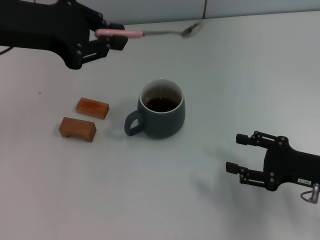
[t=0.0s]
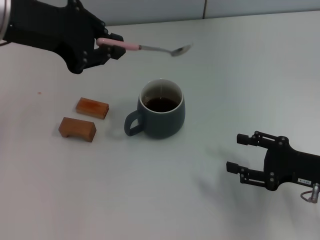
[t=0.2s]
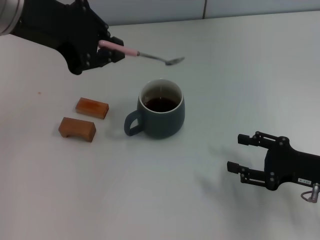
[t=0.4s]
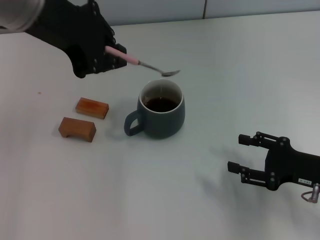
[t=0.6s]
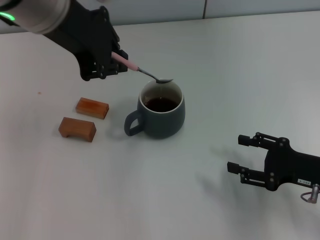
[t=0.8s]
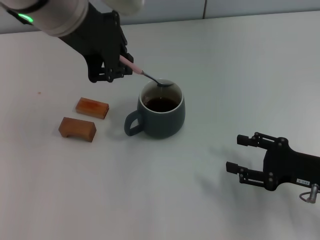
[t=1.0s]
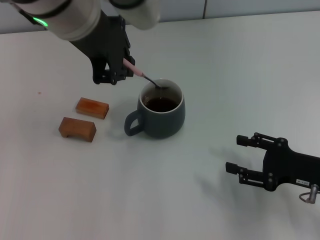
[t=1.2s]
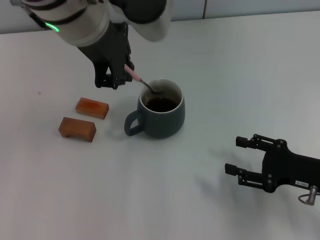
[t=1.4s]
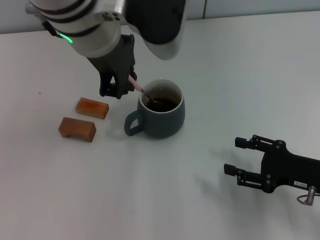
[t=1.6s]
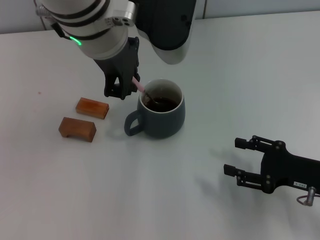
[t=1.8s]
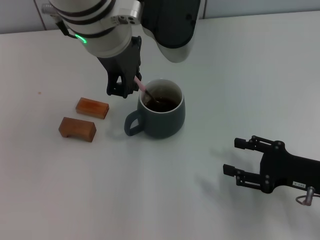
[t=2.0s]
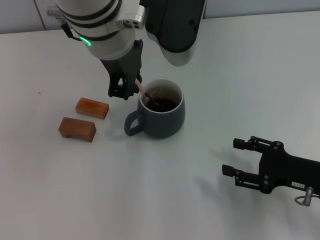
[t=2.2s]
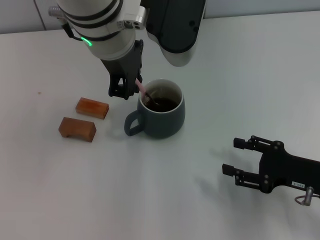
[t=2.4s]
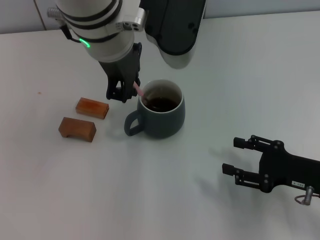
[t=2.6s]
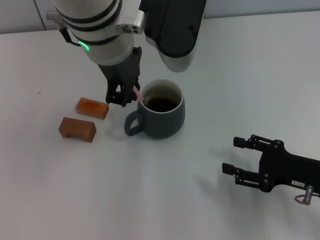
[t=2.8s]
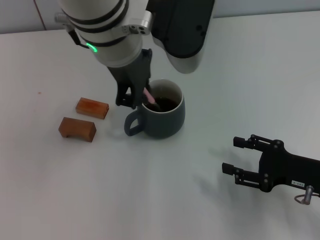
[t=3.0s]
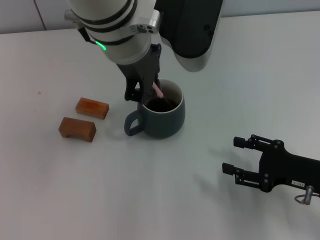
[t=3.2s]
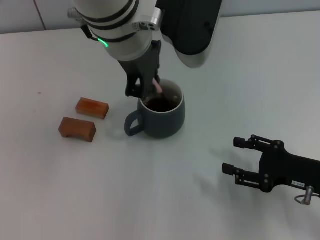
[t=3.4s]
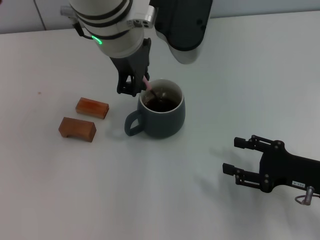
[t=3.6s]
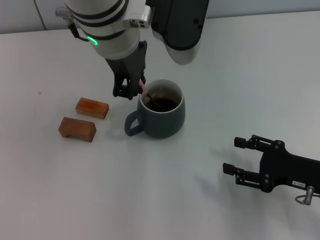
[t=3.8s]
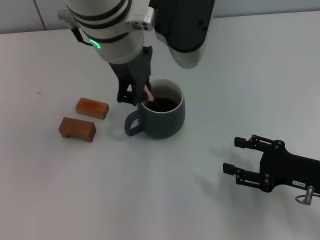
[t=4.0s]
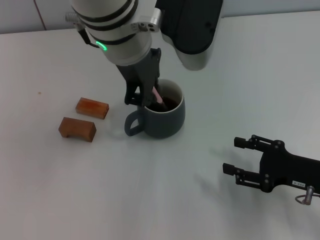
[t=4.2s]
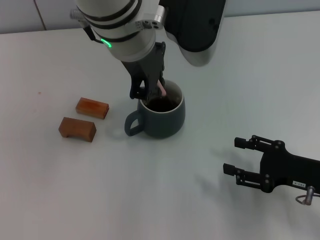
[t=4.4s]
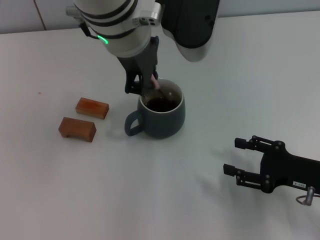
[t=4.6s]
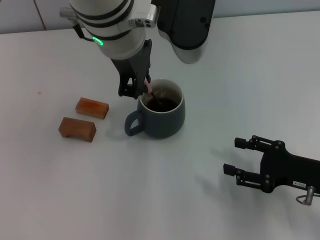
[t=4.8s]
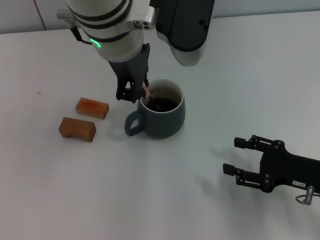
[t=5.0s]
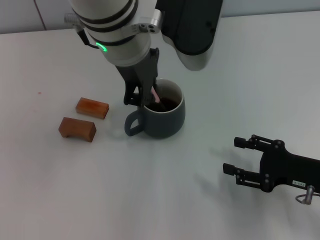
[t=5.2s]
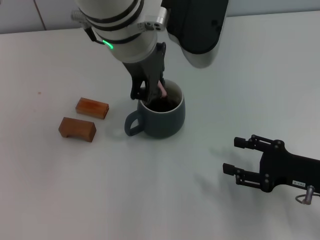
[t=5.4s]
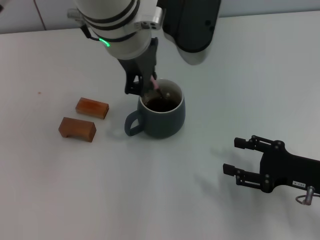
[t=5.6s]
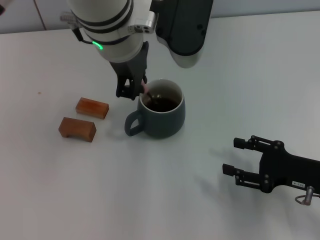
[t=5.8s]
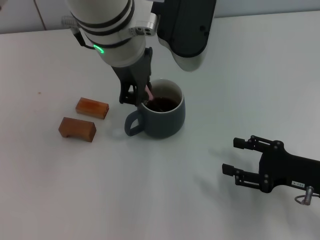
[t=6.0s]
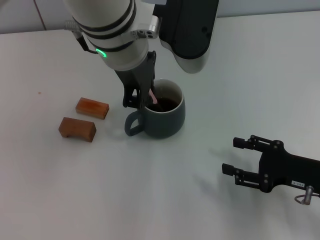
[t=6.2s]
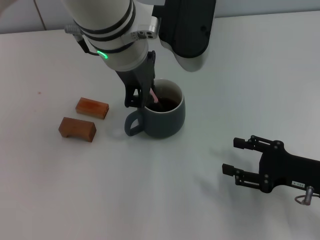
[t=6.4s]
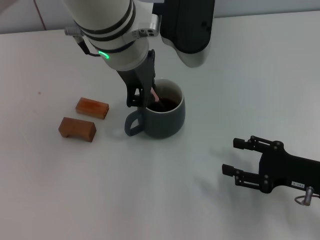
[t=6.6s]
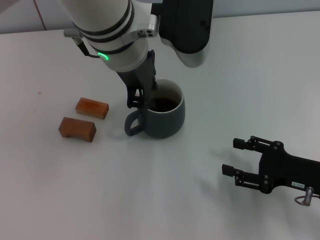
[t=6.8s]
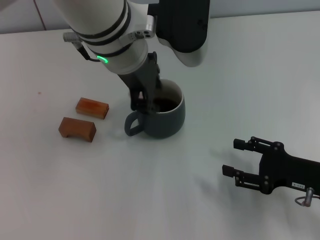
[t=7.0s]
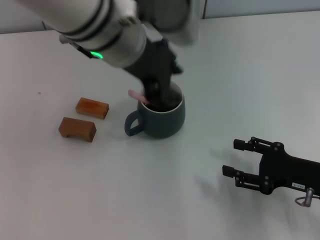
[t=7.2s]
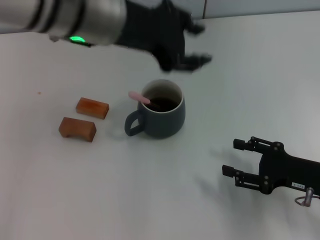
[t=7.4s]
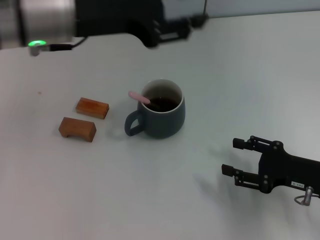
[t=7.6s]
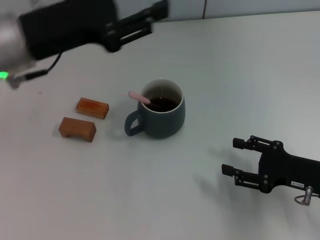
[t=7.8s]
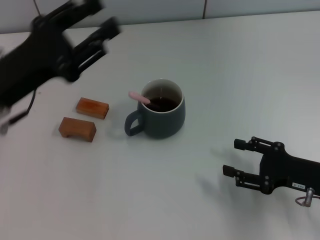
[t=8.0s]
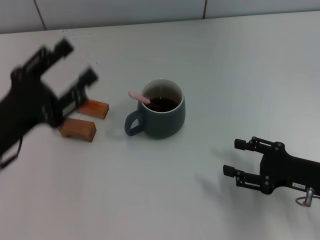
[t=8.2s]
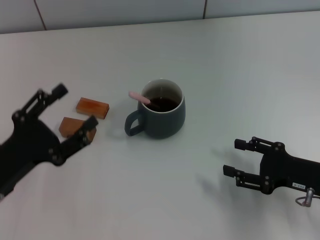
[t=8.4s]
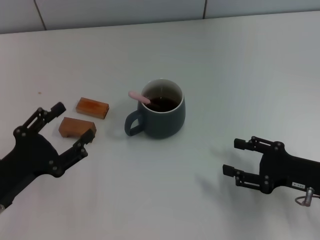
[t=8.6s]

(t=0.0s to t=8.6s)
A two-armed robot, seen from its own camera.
Task of the whole recording: Move the grey cup to the center, lift the pink spoon, stir it three times in the cup, and put the spoon into the cup.
Step, t=0.0s - t=7.2s: Stir the coffee in the cup with the left gripper.
t=0.0s - t=1.4s: The left gripper moves to the right, about 15 cm.
t=1.4s - t=5.8s: The grippers make only small movements.
t=5.8s - t=7.2s: The left gripper opens its fingers.
t=7.2s - t=8.6s: The left gripper heads downward, to the left and backward, covering approximately 35 cm, and opens up.
